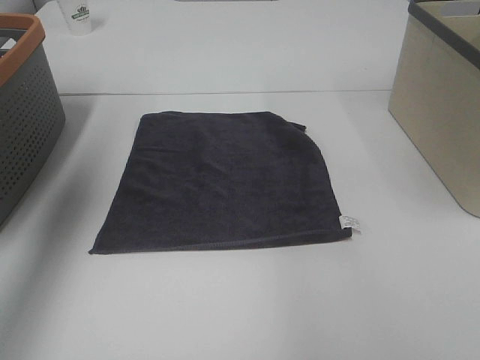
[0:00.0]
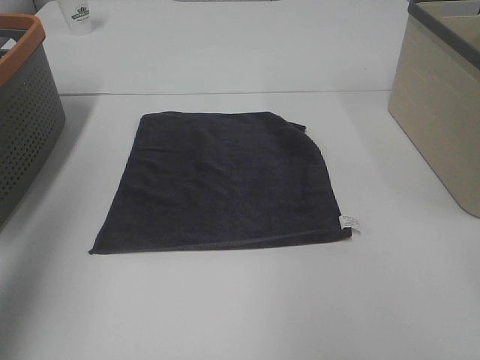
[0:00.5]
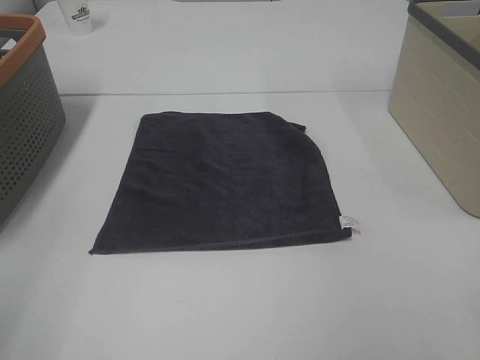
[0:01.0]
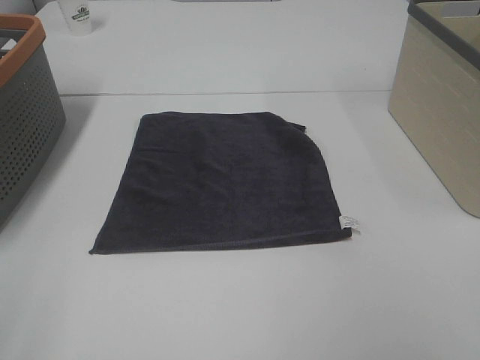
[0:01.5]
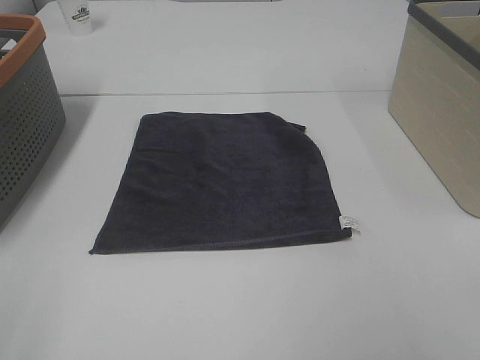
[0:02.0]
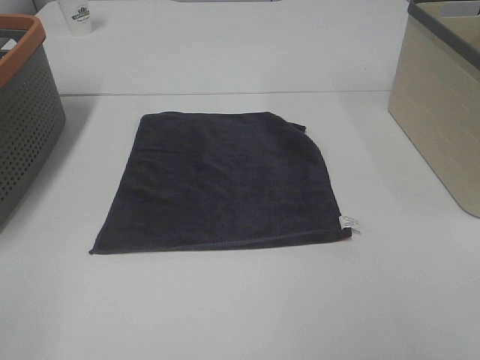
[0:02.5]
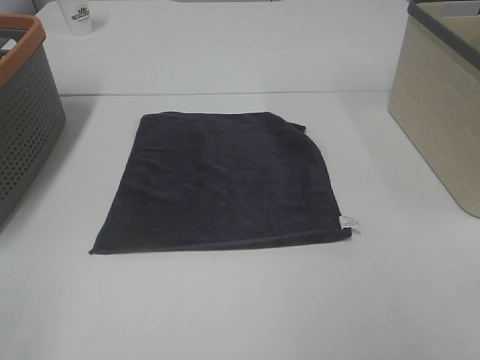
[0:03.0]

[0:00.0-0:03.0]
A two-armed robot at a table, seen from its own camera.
Task of the whole recording: Remove the towel and place it.
0:00.0 to 0:01.5: The left gripper moves backward, about 30 cm.
